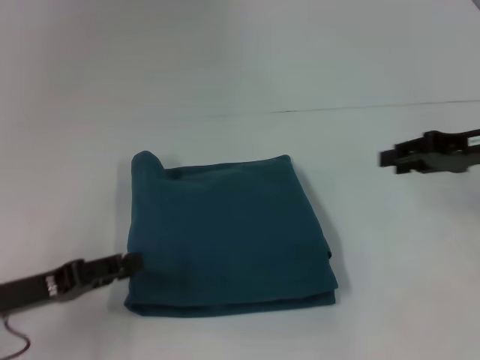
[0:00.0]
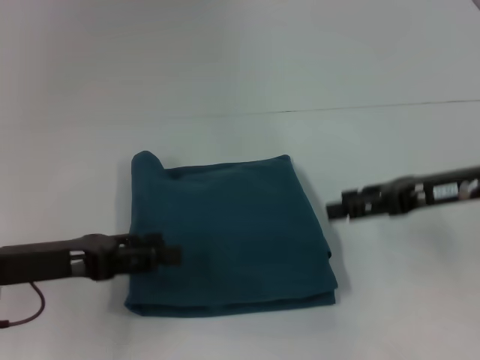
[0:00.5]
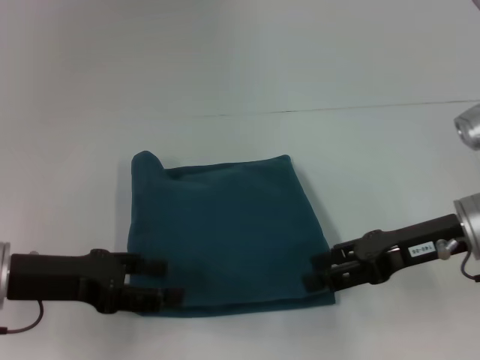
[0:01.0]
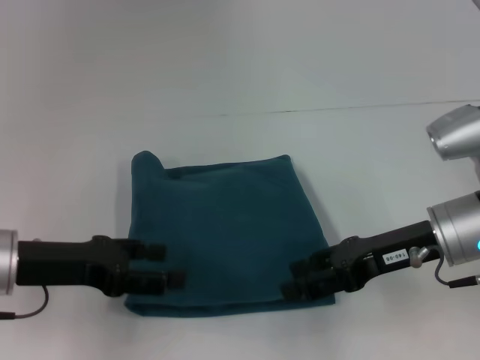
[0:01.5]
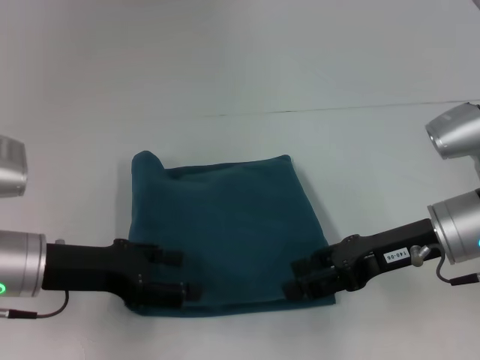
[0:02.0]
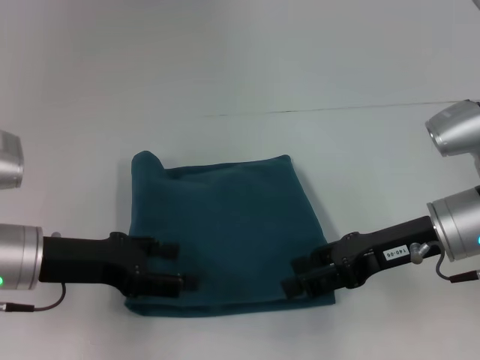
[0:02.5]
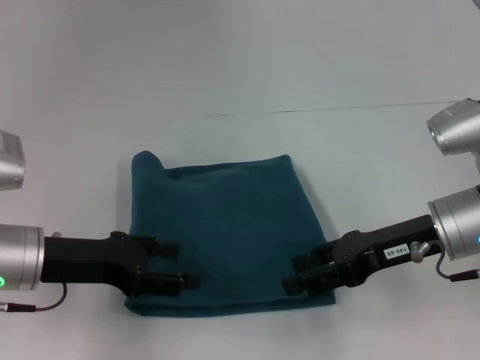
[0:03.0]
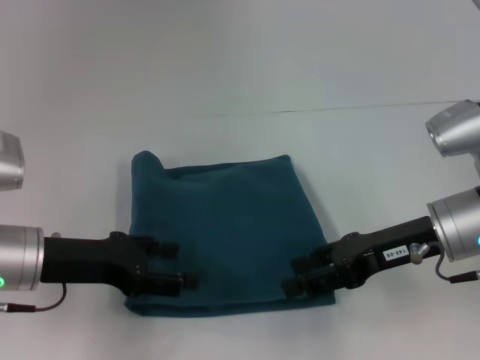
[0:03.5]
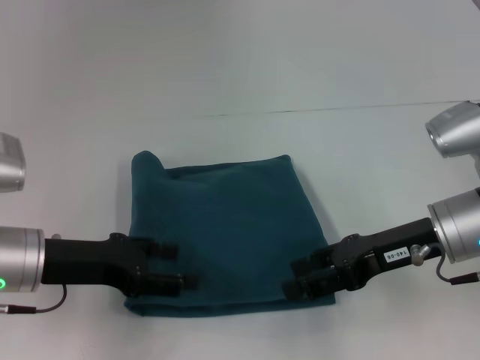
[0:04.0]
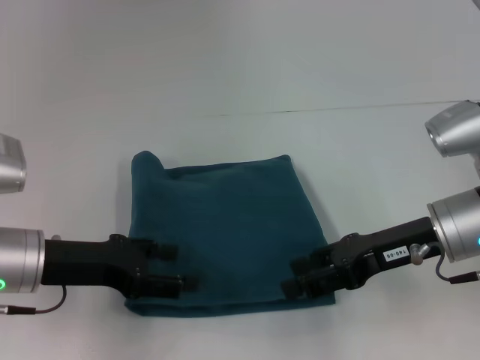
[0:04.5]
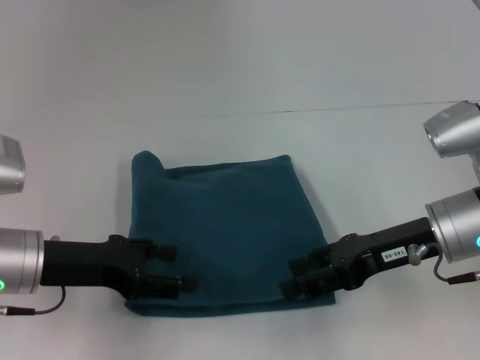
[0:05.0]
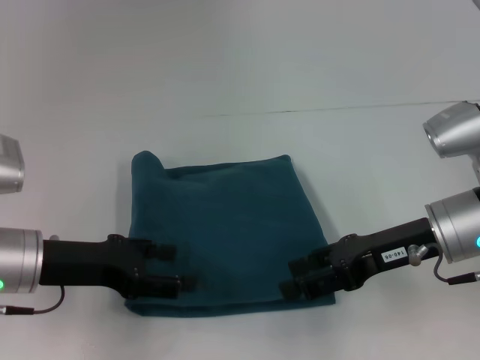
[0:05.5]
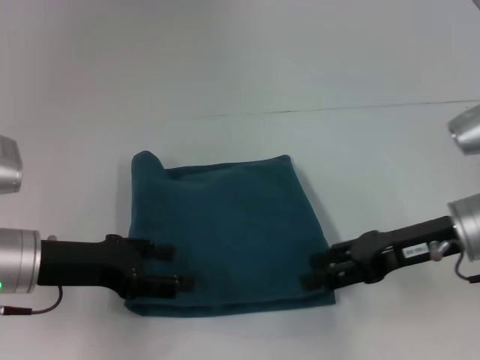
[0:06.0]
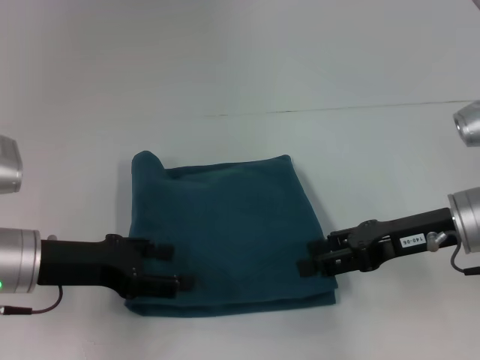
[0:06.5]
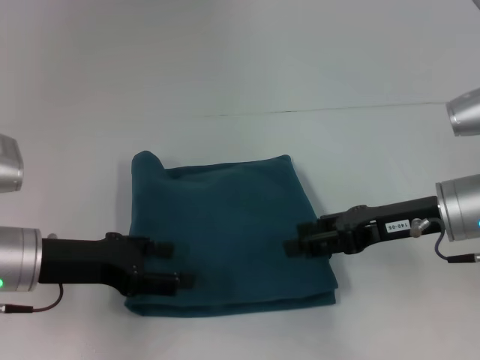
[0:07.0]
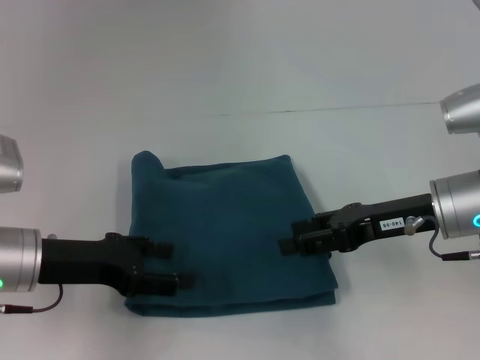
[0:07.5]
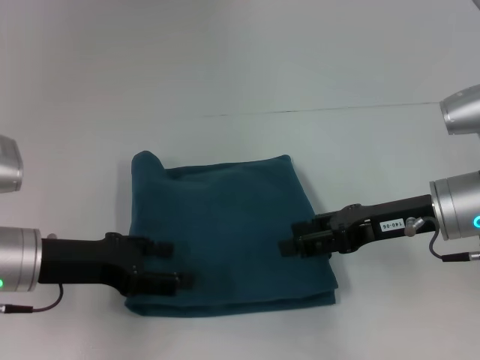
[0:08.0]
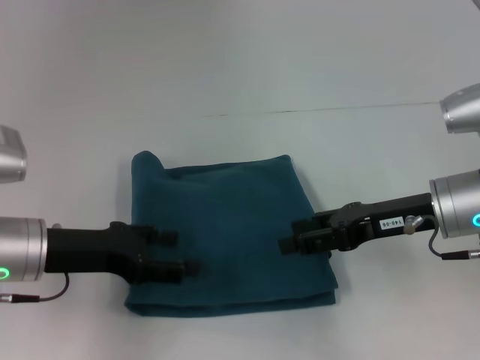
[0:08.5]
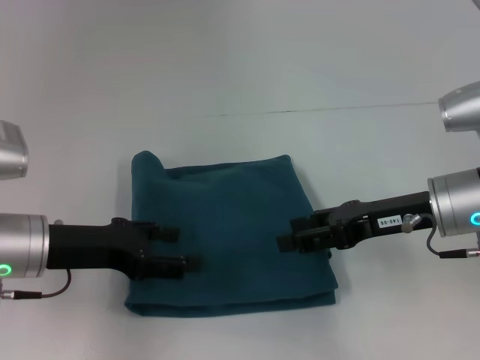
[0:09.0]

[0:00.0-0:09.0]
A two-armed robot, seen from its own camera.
0:00.0 to 0:02.0: The left gripper travels to the right by some 5 cm, and opens, while the right gripper moves to the left and backward, some 10 cm.
0:02.0 to 0:04.5: Both grippers stay put.
0:04.5 to 0:07.0: The grippers move only a little.
0:07.0 to 0:09.0: Both grippers stay put.

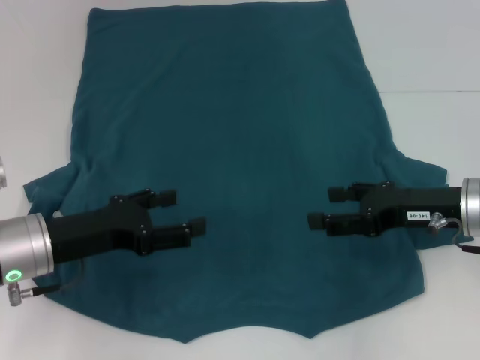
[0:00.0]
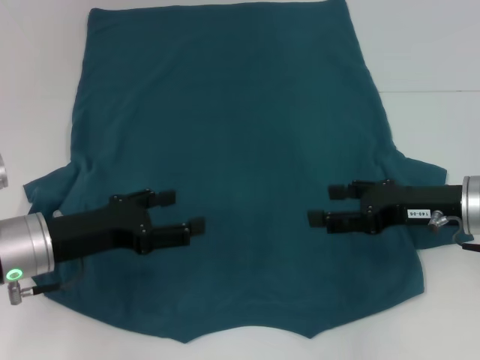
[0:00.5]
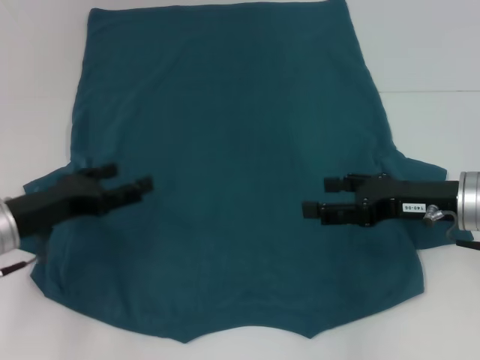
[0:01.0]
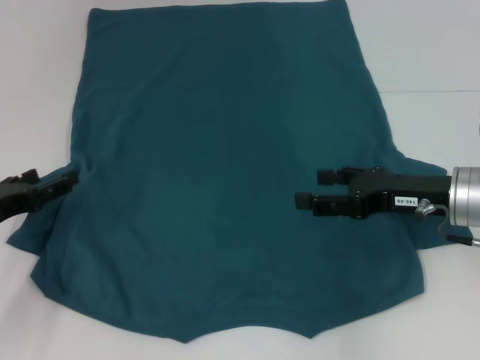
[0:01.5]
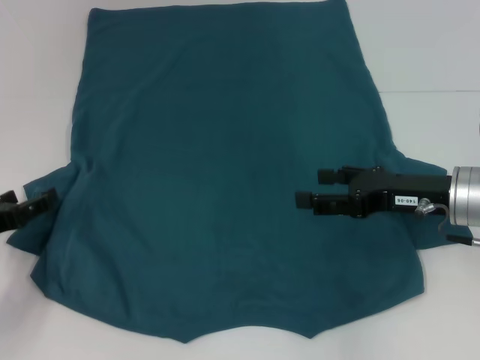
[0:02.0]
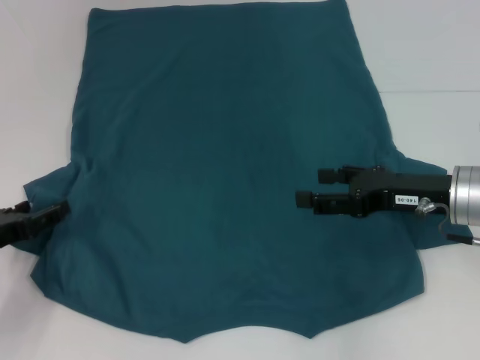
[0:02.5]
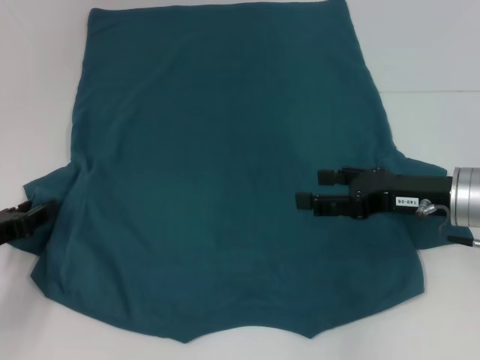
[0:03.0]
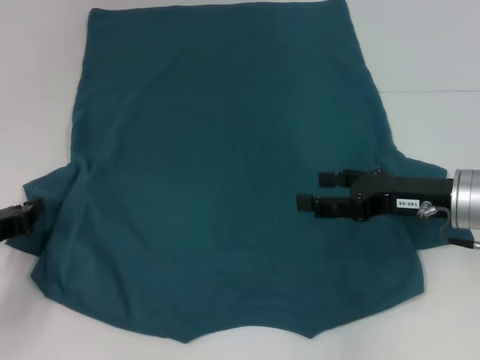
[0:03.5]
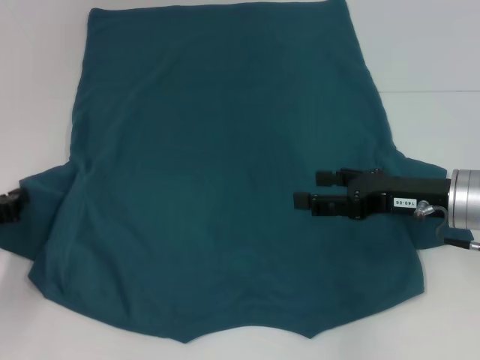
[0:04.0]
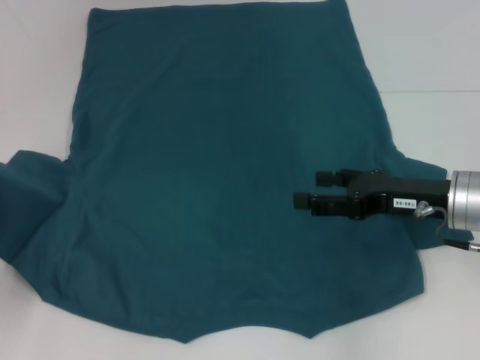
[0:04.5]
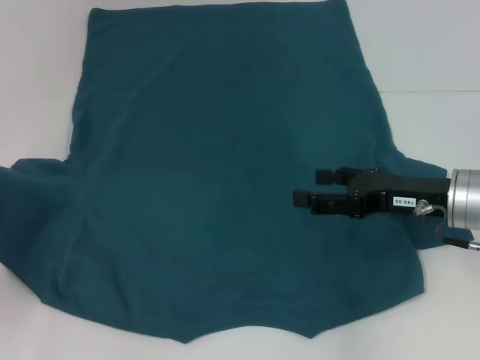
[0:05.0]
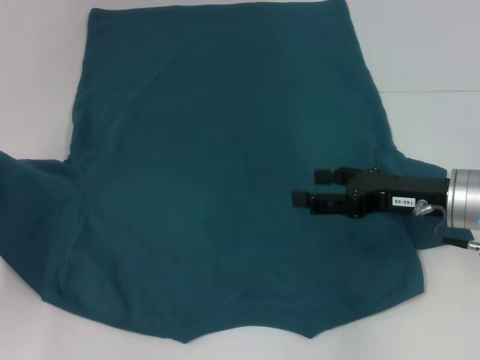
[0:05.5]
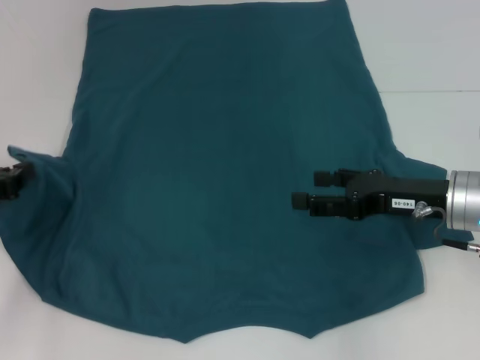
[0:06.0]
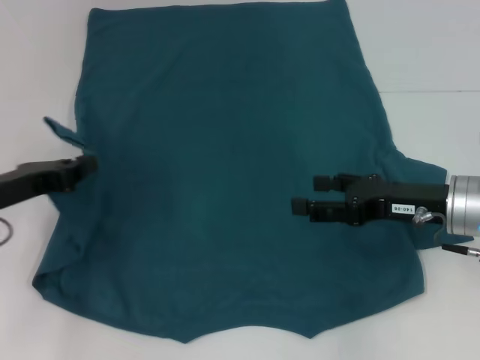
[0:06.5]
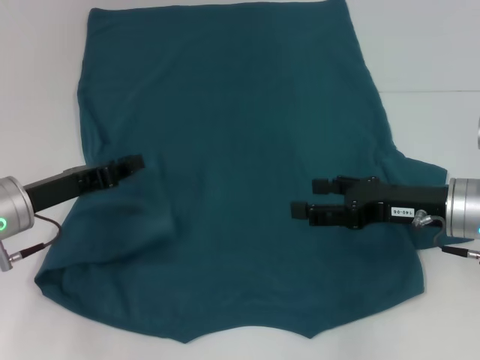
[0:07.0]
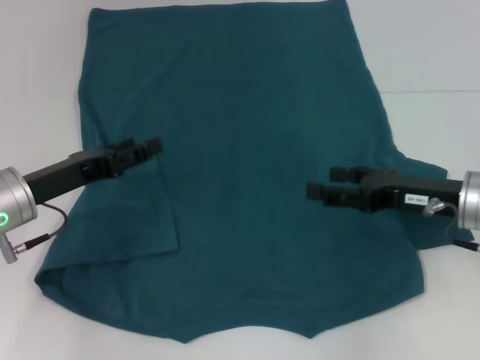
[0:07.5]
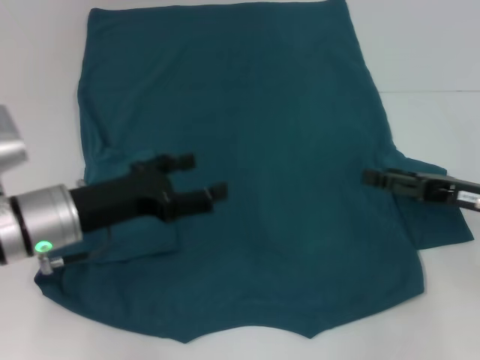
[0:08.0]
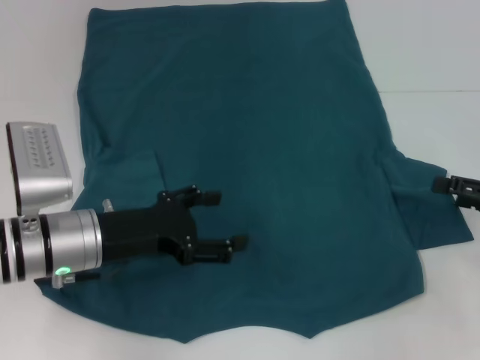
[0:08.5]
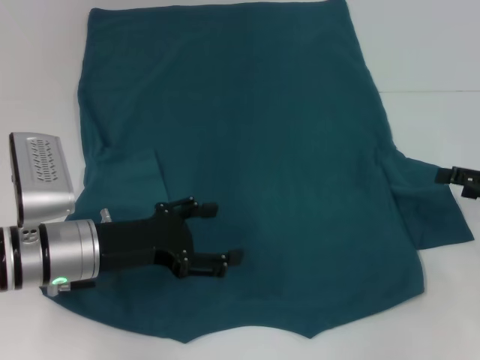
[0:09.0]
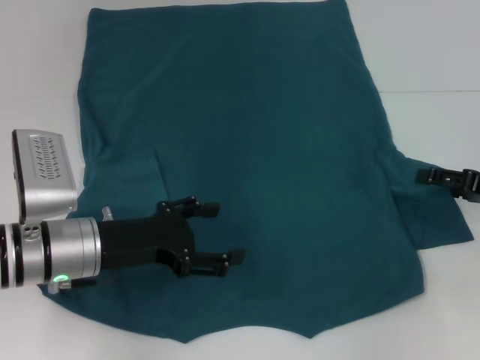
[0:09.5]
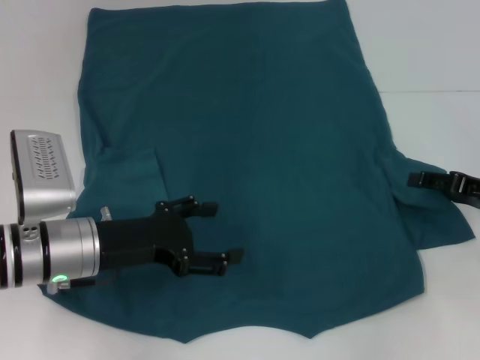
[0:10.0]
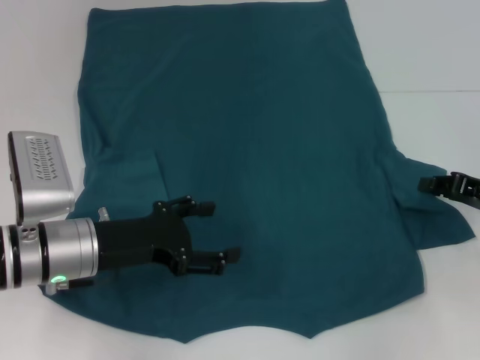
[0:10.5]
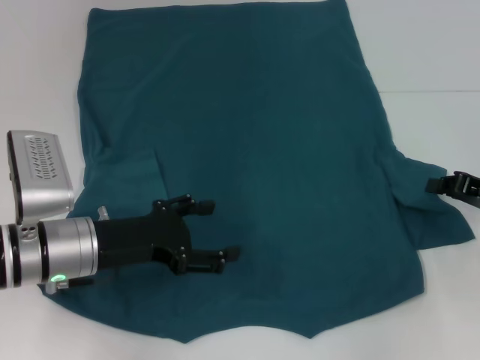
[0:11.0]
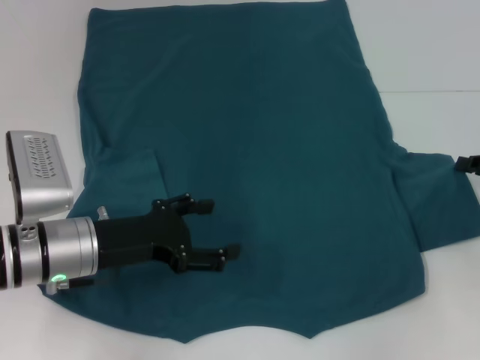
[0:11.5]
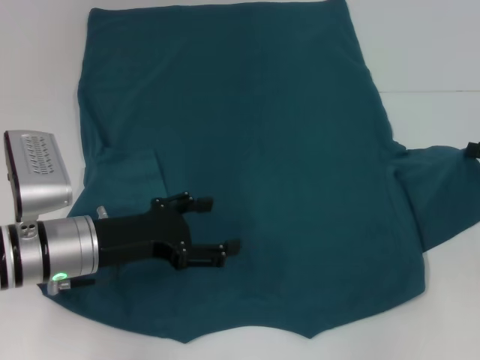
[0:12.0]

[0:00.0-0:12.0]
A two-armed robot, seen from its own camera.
Step, 0:00.0 to 0:07.0: Fold the bottom left sleeve with your left hand.
0:00.0 to 0:02.0: The left gripper goes roughly 10 cm to the left.
0:02.0 to 0:04.0: The left gripper closes its fingers.
0:04.0 to 0:06.0: The grippers make only small movements.
0:06.0 to 0:08.0: The right gripper heads to the right, covering approximately 5 cm. The left gripper shifts approximately 15 cm to the right, and opens.
0:10.0 to 0:12.0: The right gripper closes up.

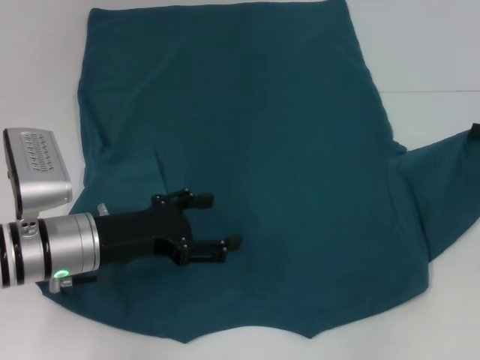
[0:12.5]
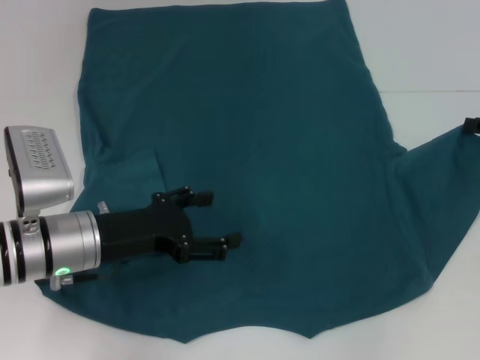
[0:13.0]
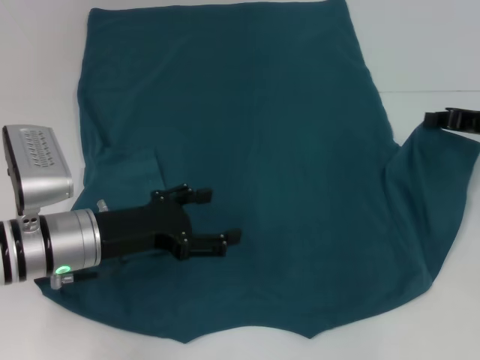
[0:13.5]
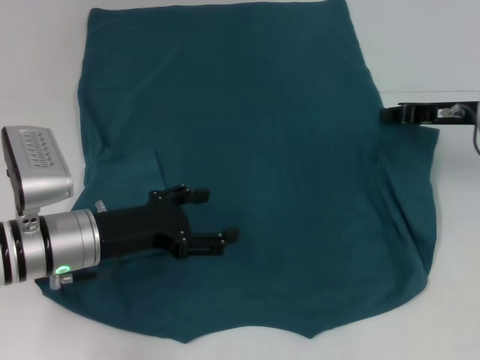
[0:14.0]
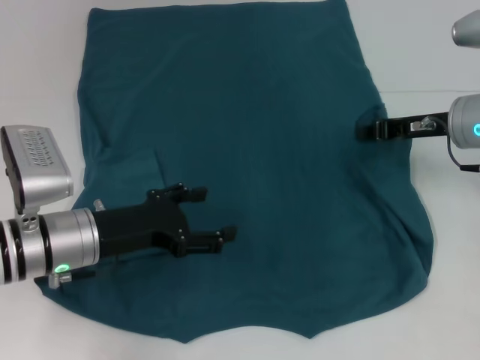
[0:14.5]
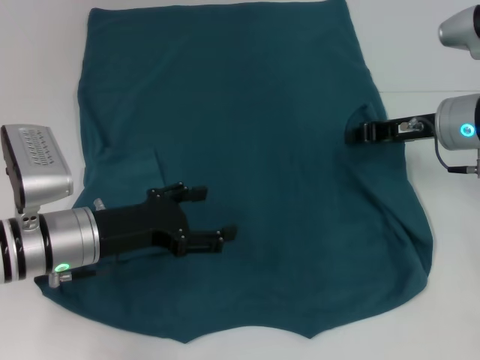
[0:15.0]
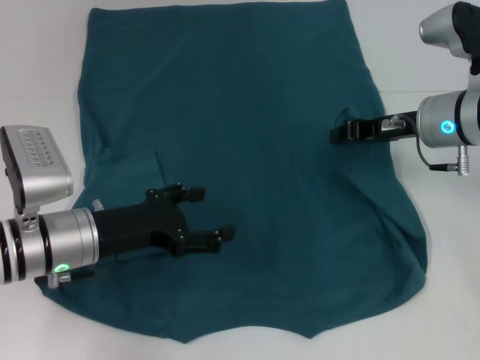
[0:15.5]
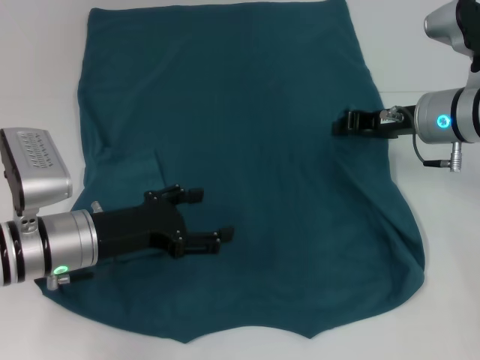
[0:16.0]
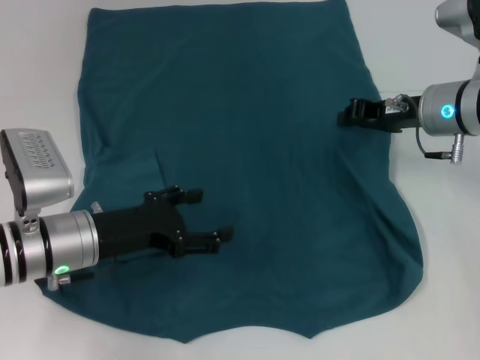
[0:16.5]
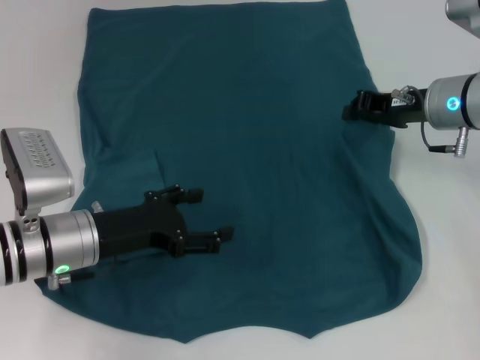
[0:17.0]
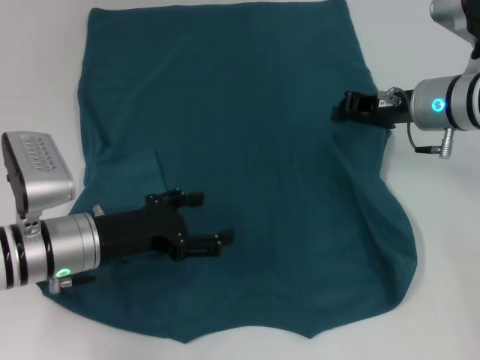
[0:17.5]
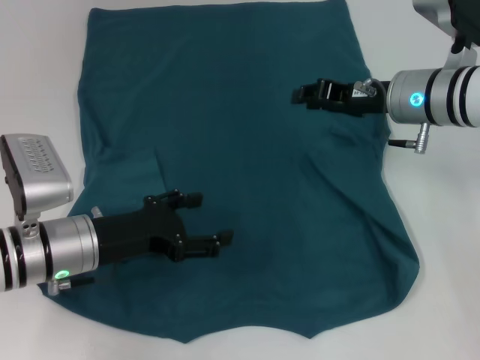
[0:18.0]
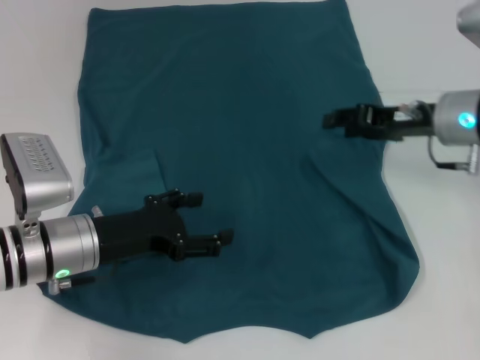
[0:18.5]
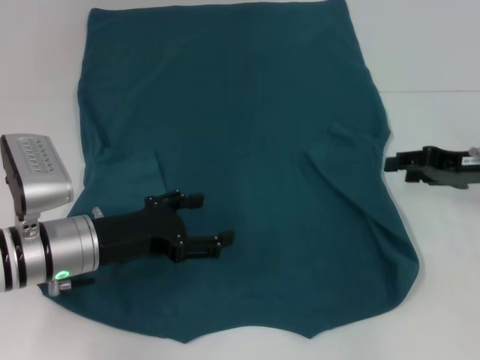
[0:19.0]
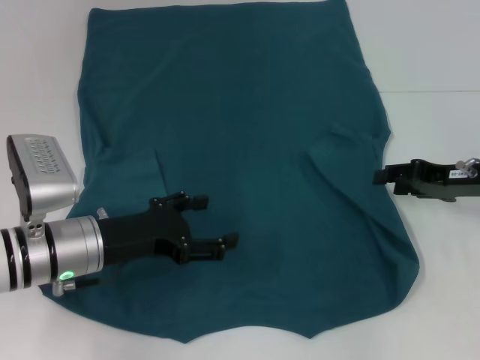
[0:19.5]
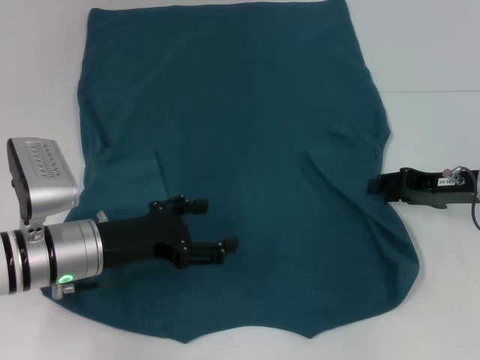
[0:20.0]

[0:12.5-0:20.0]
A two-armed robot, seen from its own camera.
0:12.5 to 0:14.5: The right gripper is displaced to the left by some 10 cm.
0:14.5 to 0:16.5: There are only small adjustments of the grippers.
0:16.5 to 0:18.0: The grippers move only a little.
0:18.0 to 0:20.0: The right gripper moves to the right, backward and downward, about 15 cm.
